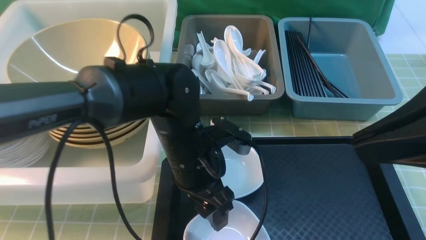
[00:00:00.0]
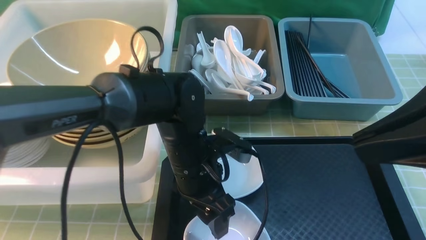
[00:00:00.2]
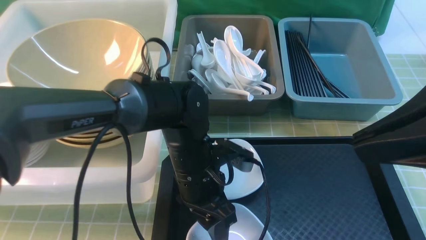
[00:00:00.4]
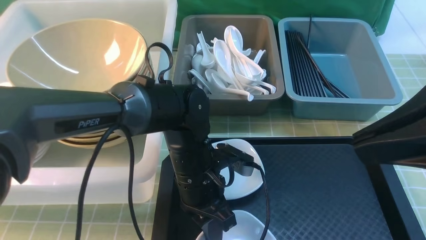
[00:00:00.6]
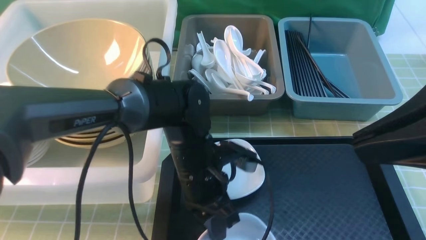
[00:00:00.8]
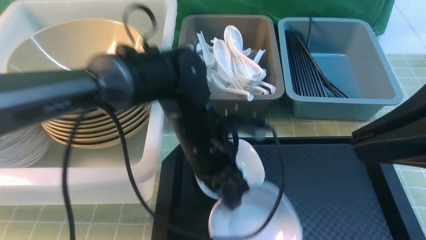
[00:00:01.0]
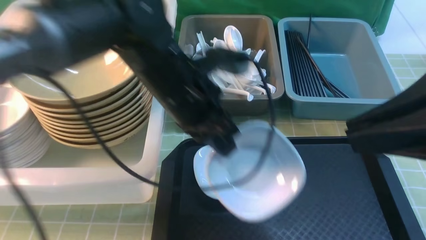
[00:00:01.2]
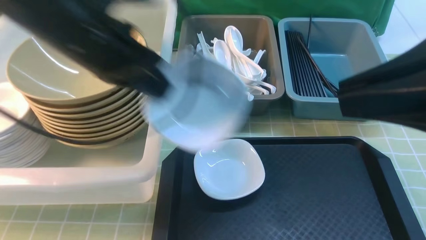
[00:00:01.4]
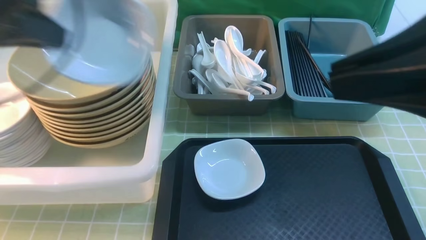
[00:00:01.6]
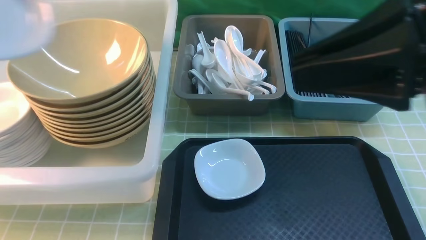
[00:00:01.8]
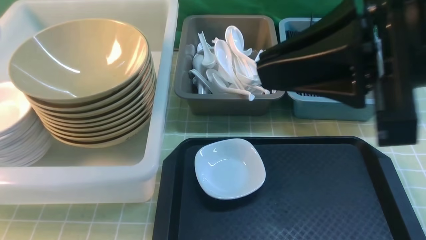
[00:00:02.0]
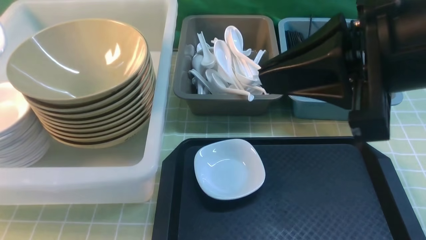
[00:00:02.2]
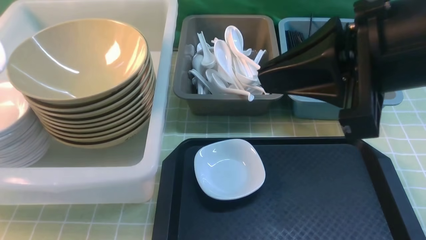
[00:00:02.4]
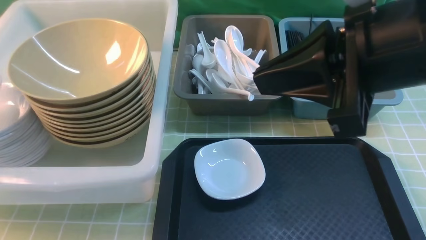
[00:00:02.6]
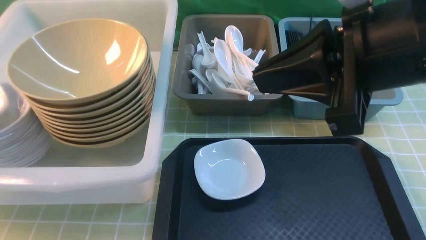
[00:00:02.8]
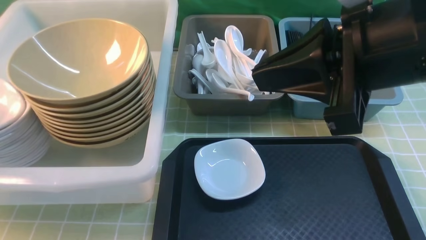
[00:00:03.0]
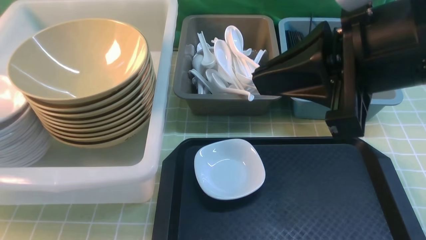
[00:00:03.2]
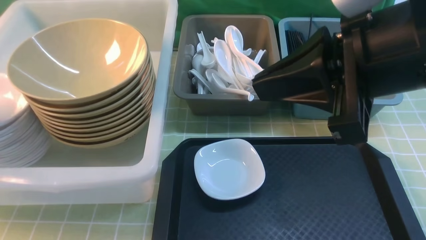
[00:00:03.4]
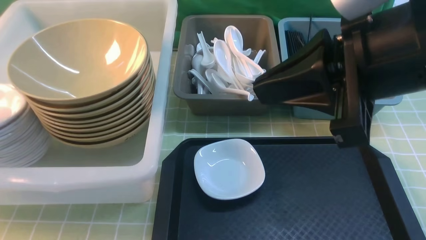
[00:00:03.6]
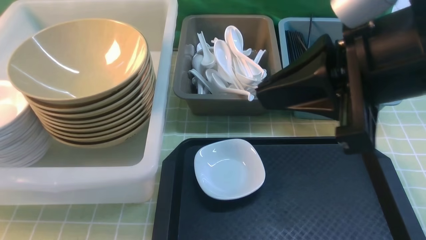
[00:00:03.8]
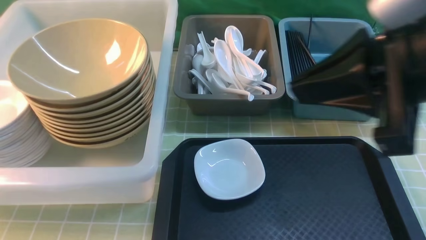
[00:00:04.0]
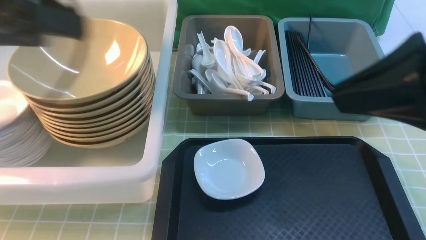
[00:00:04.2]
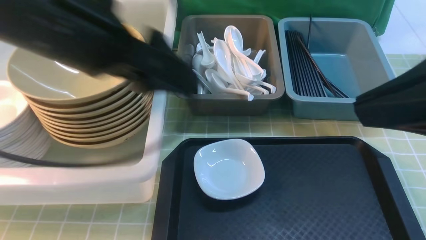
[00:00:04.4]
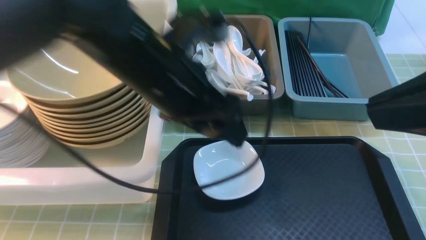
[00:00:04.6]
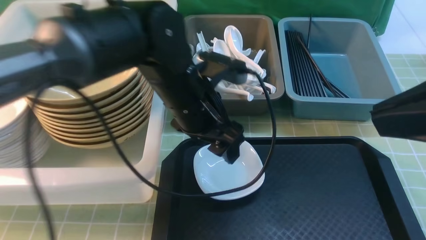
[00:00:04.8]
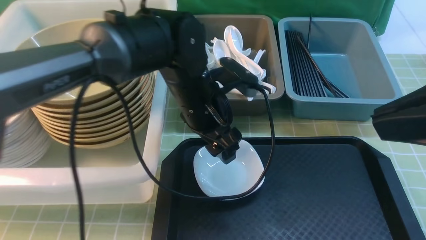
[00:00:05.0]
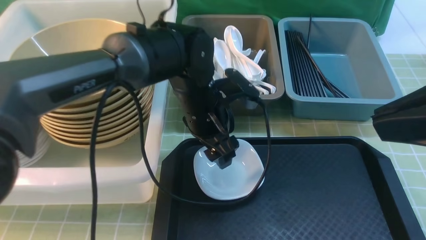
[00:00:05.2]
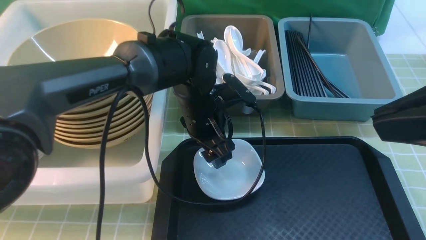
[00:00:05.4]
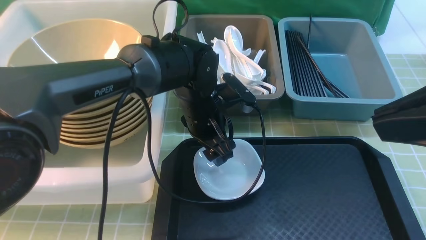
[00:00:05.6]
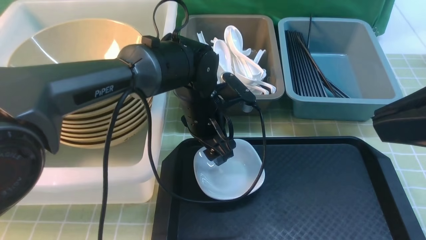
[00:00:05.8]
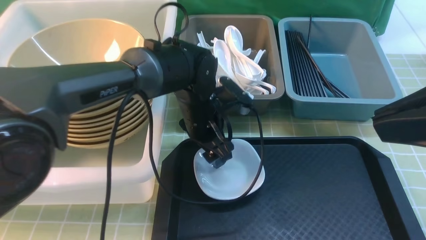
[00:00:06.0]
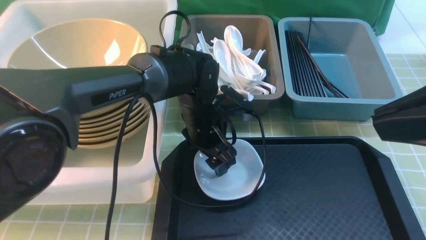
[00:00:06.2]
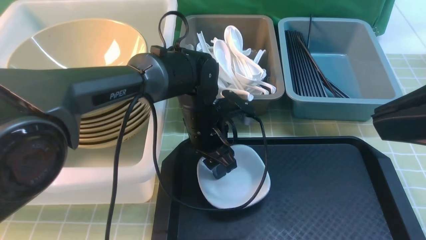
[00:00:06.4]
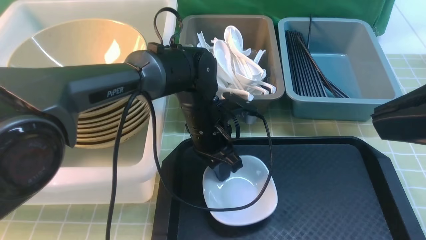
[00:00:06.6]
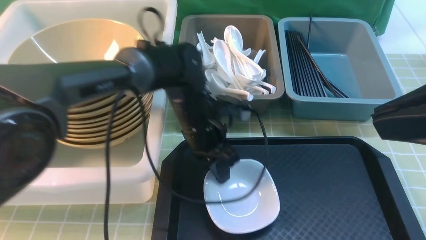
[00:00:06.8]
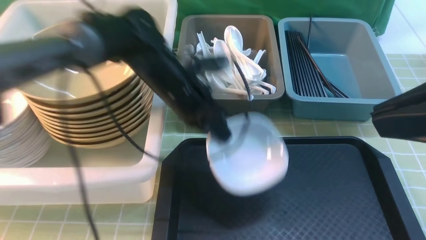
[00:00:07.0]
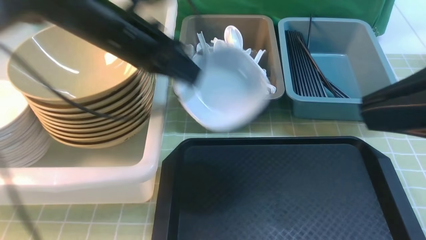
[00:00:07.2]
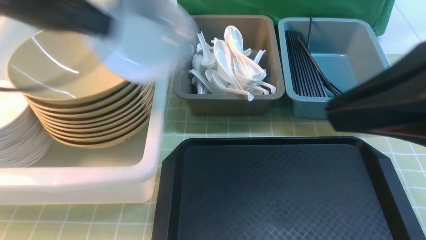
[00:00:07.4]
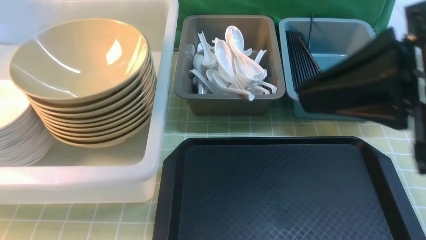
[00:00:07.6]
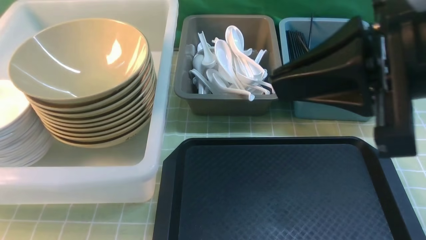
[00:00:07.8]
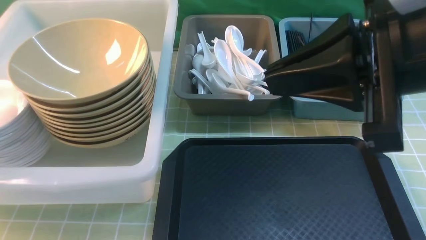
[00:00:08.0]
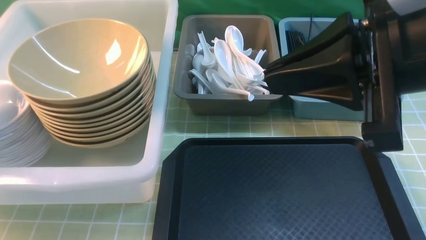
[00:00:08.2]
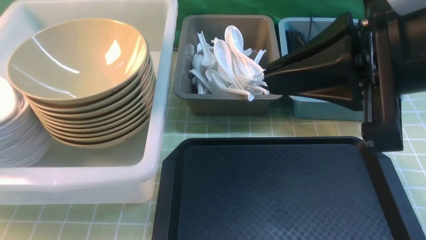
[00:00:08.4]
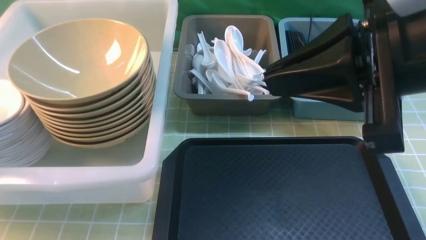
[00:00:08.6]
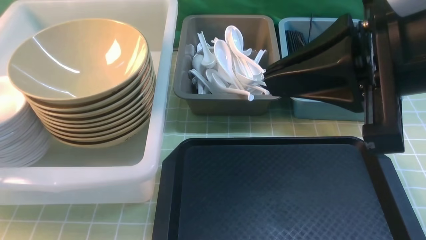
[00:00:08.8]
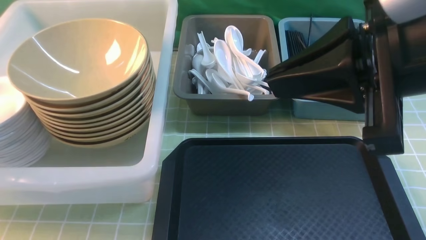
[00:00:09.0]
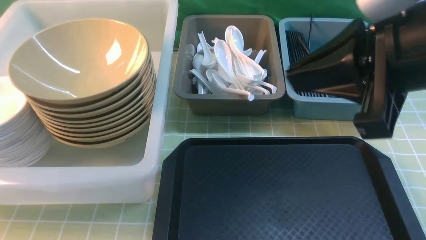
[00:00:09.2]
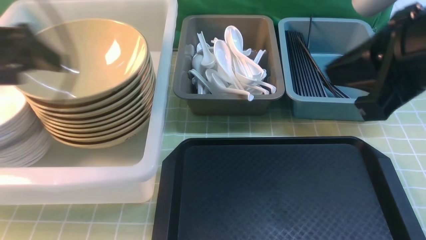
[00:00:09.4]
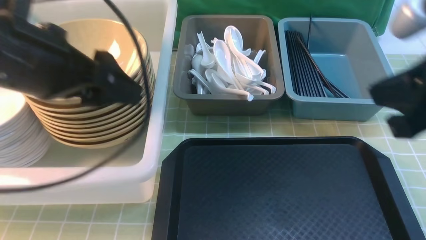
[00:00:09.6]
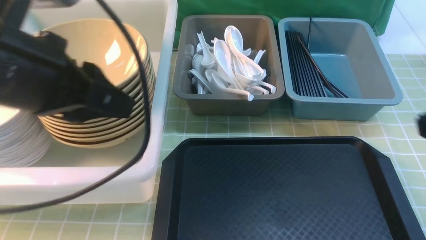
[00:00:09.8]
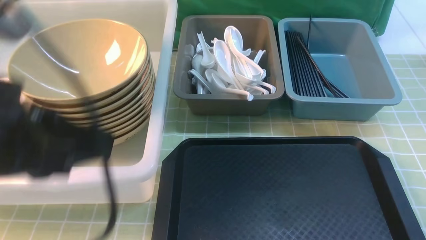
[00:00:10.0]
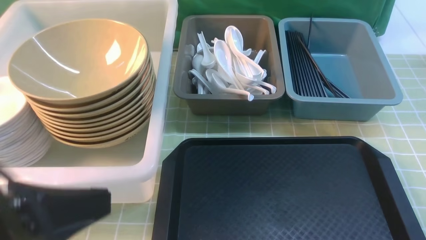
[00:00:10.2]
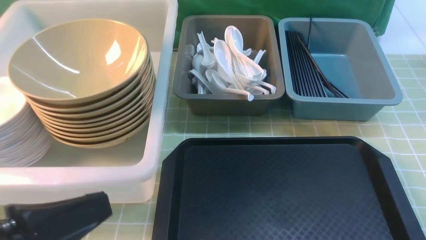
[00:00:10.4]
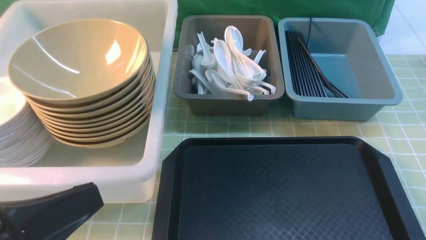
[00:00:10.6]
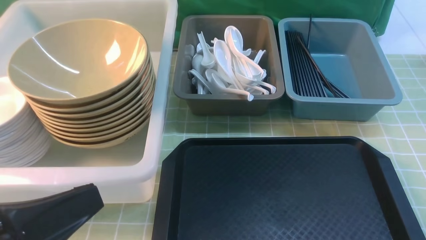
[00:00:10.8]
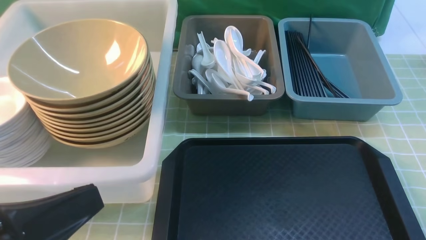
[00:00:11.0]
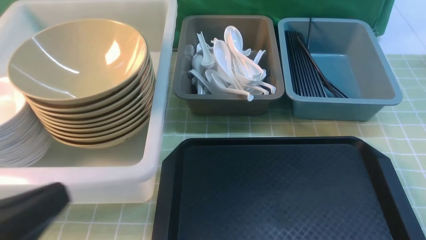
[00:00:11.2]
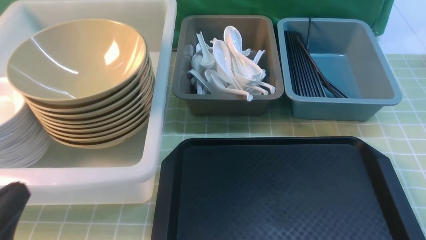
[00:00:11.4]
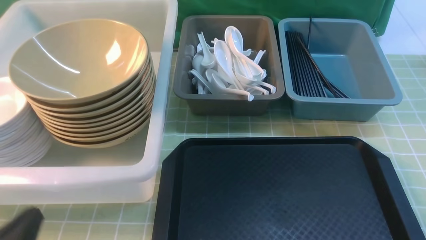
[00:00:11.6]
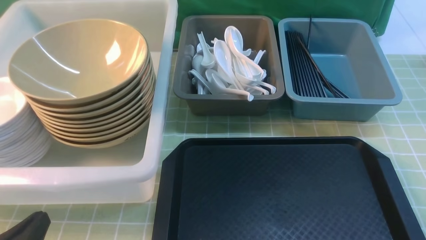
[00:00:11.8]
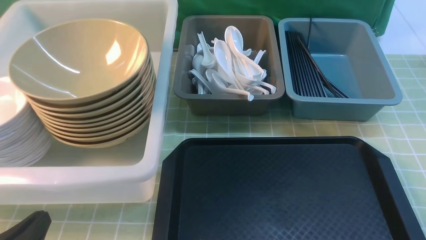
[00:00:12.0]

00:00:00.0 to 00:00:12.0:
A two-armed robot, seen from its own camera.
Task of the whole recording: on green table put chopsticks spoon bowls plates into blue grey white boxes.
Step, 00:00:00.0 to 00:00:01.0: use the left arm to grab the plate.
Step, 00:00:01.2 to 00:00:03.8: use the left arm to put the plate into the large storage box on the left.
Step, 00:00:04.2 to 00:00:07.0: use the left arm to grab the plate.
Step, 00:00:07.2 to 00:00:09.0: use the left arm to put the plate into the large storage box on the left.
00:00:00.0 to 00:00:01.6: The left gripper goes approximately 30 cm to the left and upward, and closes its fingers.
00:00:01.6 to 00:00:03.0: The right gripper ends up some 5 cm from where it was. Meanwhile the left gripper heads to the left and downward, covering some 20 cm.
00:00:03.0 to 00:00:04.4: The left gripper goes about 30 cm to the right, and opens. The right gripper heads backward and to the right, covering about 10 cm.
00:00:04.4 to 00:00:06.0: The left gripper heads downward, to the right and forward, covering about 25 cm.
00:00:06.0 to 00:00:07.6: The right gripper ends up roughly 5 cm from where it was, while the left gripper heads to the left and upward, covering some 40 cm, and closes its fingers.
00:00:07.6 to 00:00:09.0: The left gripper is displaced downward by some 10 cm, and opens.
00:00:09.0 to 00:00:10.4: The left gripper moves backward and to the right, approximately 30 cm, and closes. The right gripper heads backward, downward and to the right, covering roughly 25 cm.
00:00:10.4 to 00:00:12.0: The left gripper heads downward, covering about 15 cm.

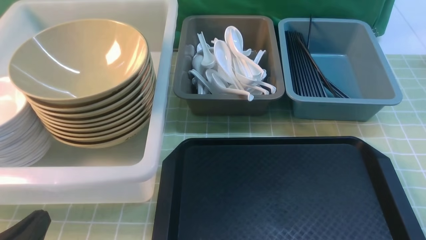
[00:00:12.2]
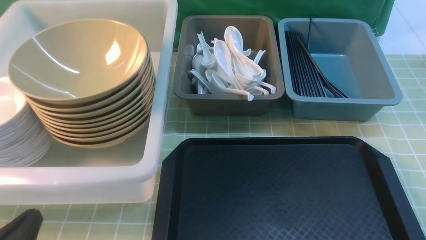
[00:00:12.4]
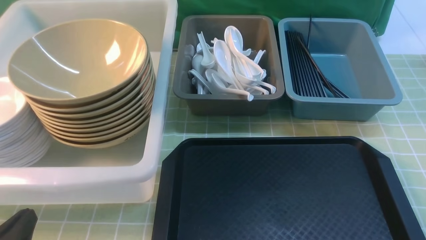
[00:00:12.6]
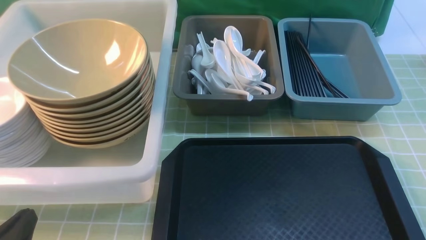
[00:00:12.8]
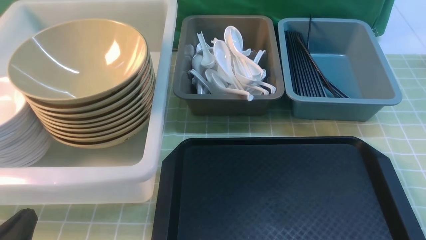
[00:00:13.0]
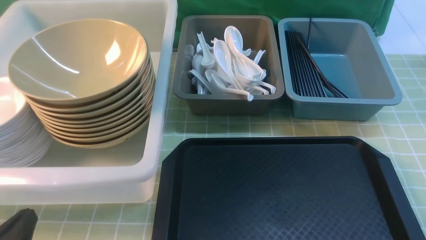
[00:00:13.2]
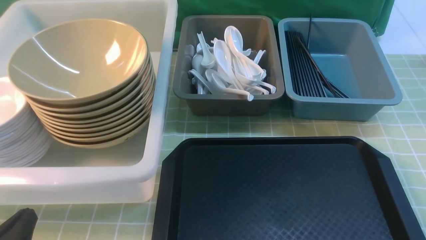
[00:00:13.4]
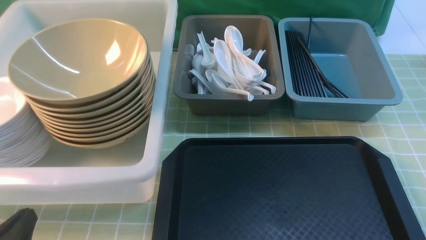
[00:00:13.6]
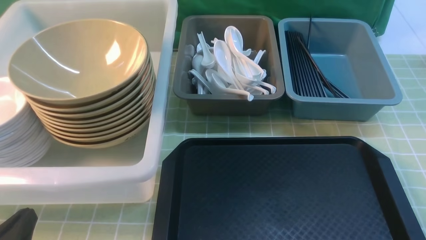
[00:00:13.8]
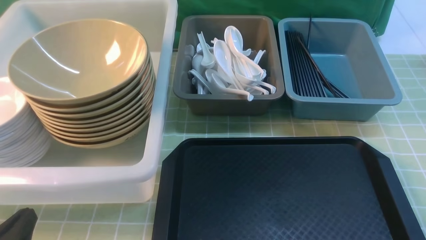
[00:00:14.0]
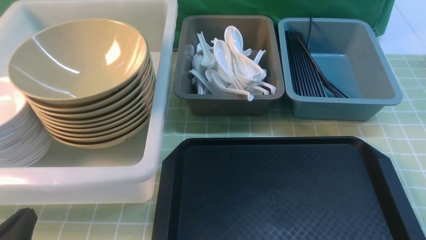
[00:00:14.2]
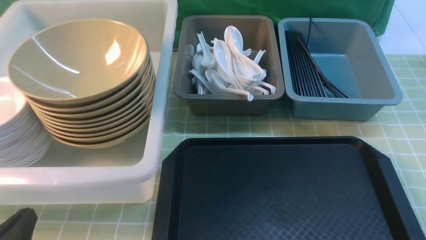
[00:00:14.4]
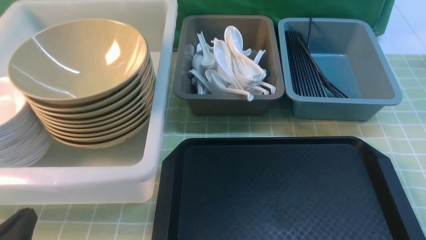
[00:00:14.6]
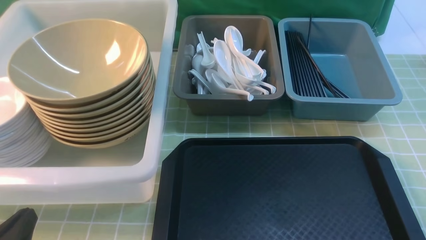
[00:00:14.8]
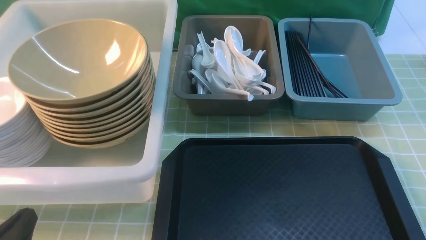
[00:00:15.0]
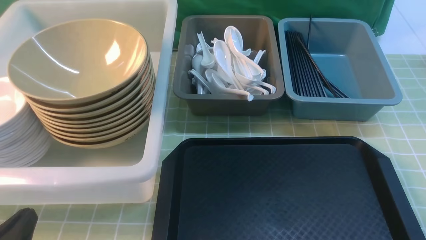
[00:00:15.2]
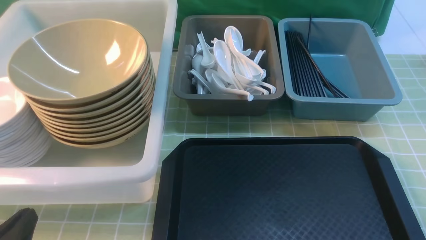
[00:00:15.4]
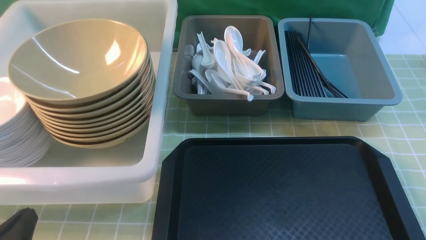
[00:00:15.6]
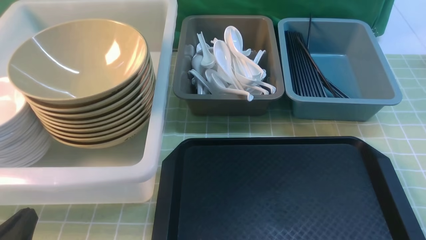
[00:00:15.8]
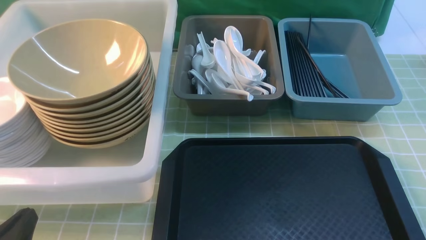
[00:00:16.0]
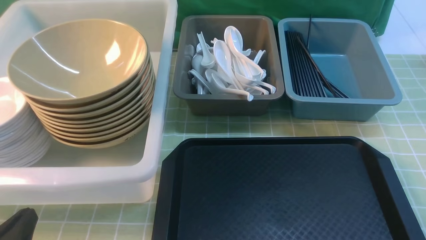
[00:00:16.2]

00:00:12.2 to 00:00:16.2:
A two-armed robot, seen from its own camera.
Task of the whole recording: on green table put chopsticks spoon bowls plates into blue grey white boxes.
00:00:14.8 to 00:00:16.2: Both grippers stay about where they are.
